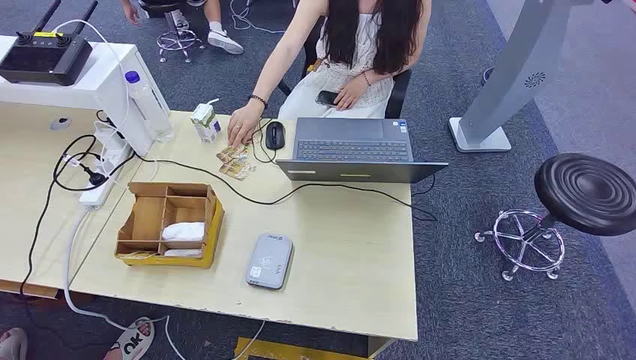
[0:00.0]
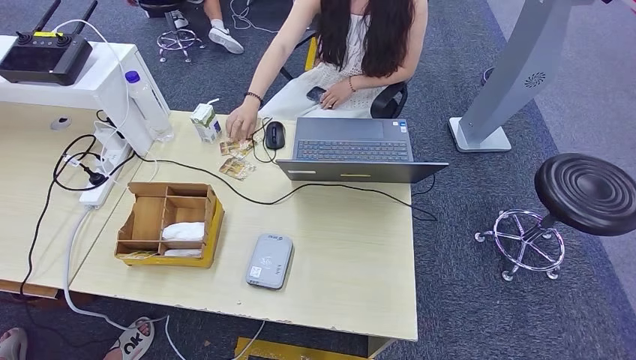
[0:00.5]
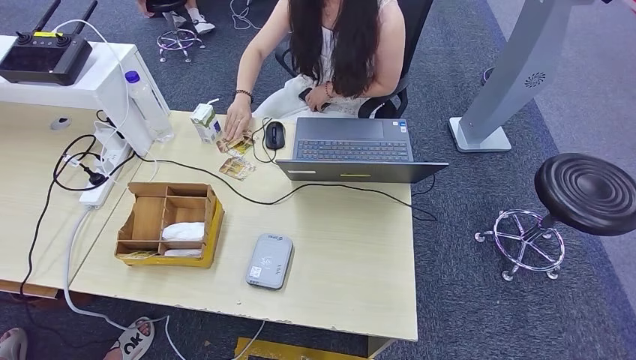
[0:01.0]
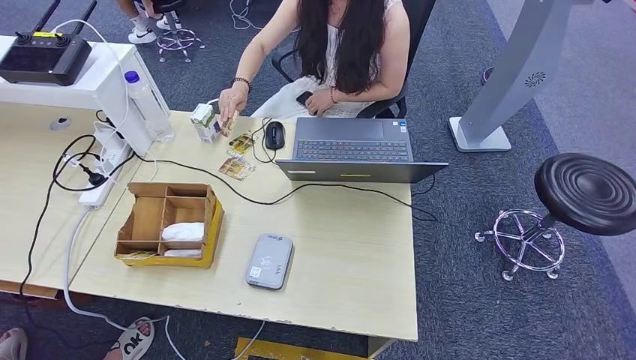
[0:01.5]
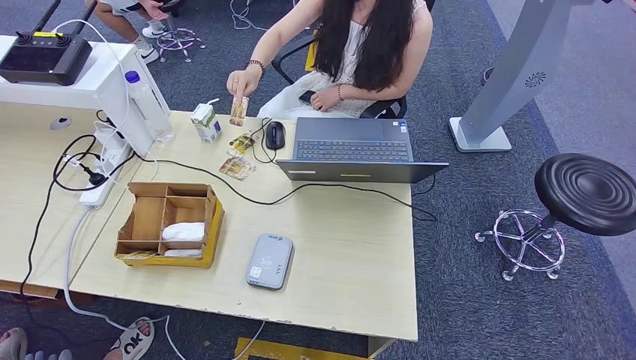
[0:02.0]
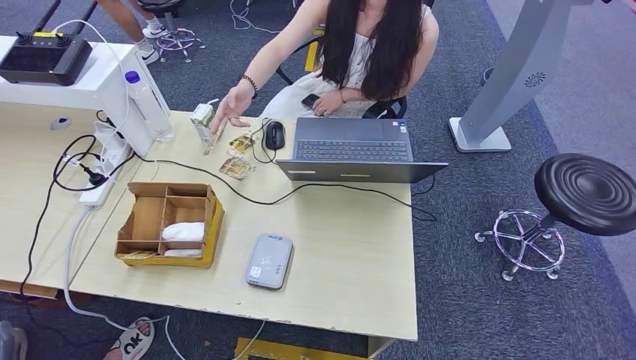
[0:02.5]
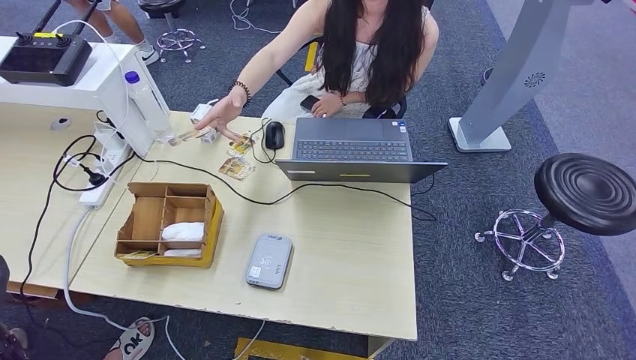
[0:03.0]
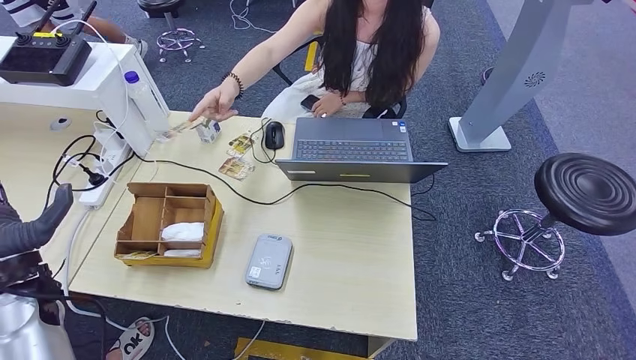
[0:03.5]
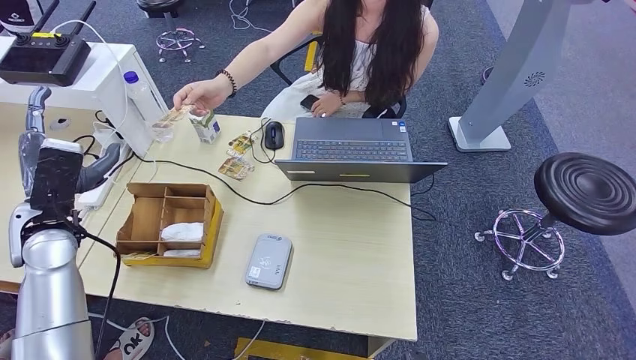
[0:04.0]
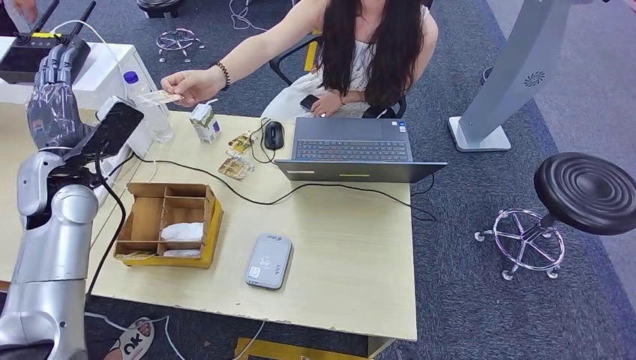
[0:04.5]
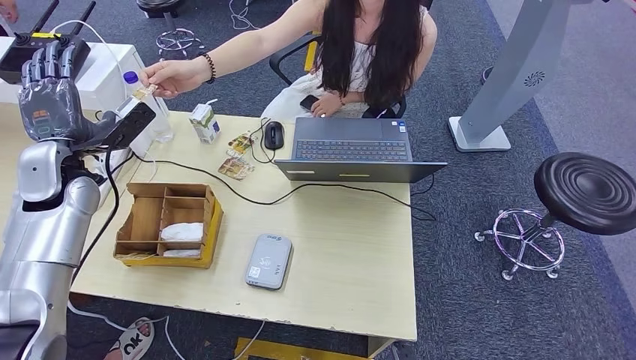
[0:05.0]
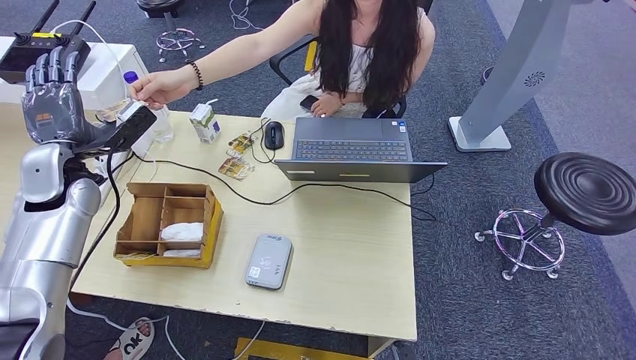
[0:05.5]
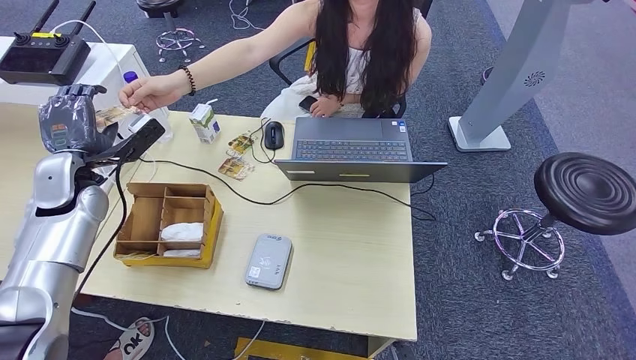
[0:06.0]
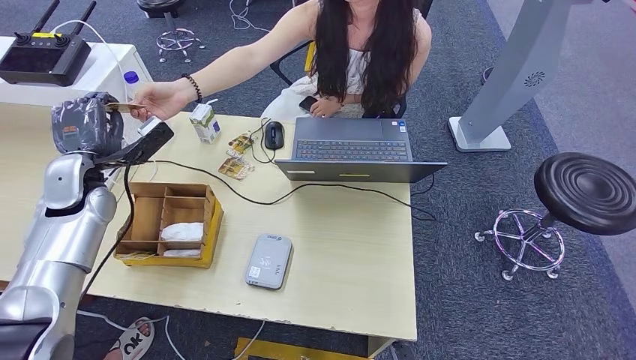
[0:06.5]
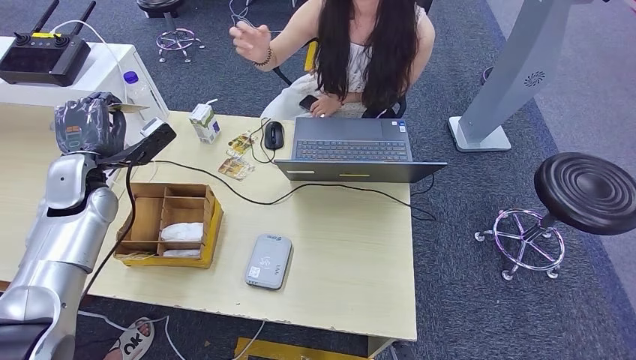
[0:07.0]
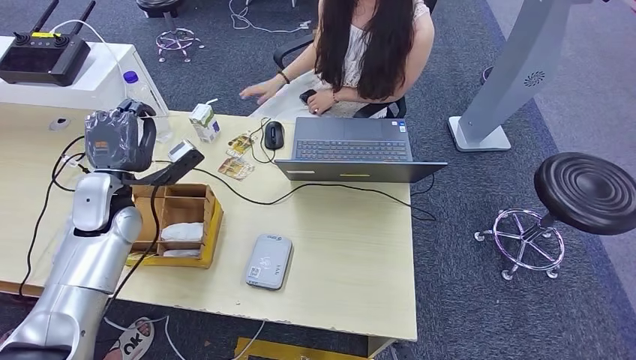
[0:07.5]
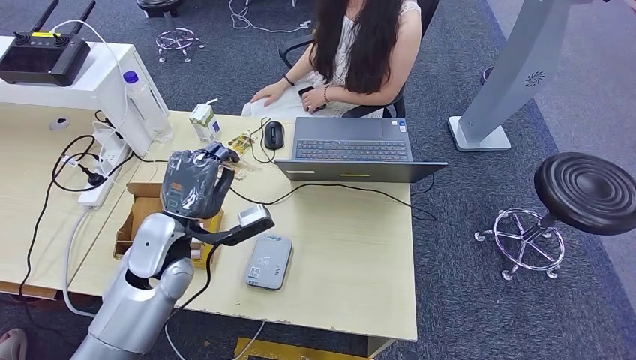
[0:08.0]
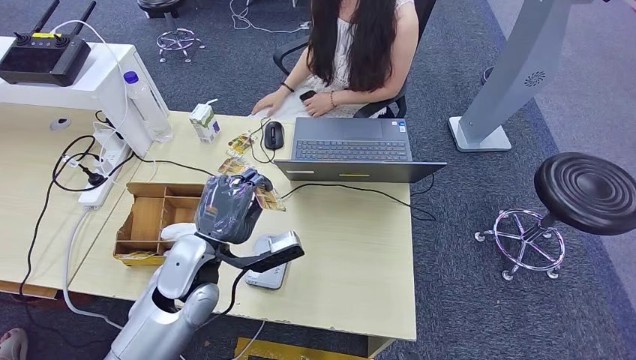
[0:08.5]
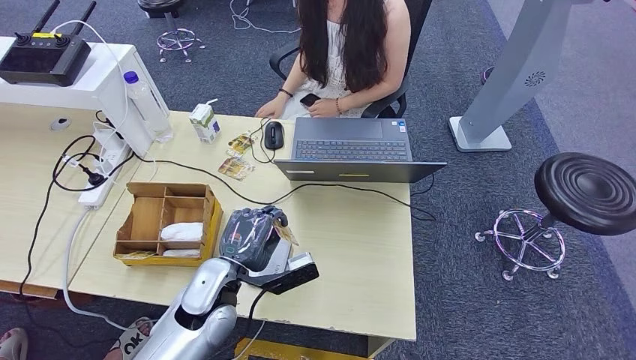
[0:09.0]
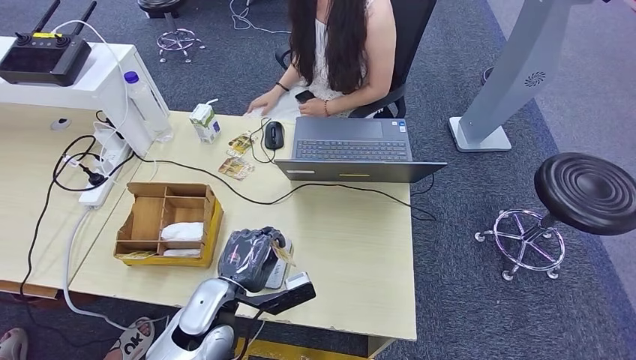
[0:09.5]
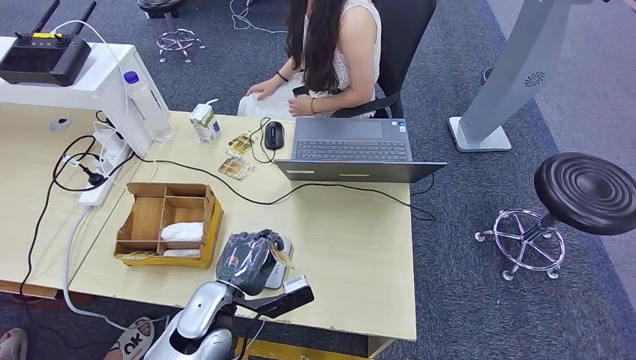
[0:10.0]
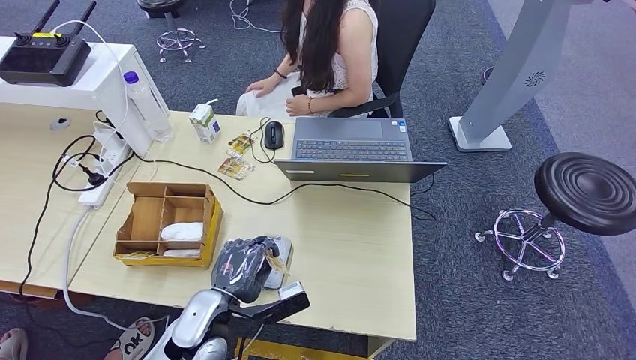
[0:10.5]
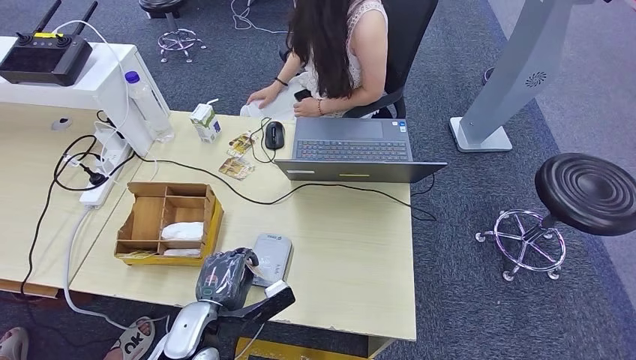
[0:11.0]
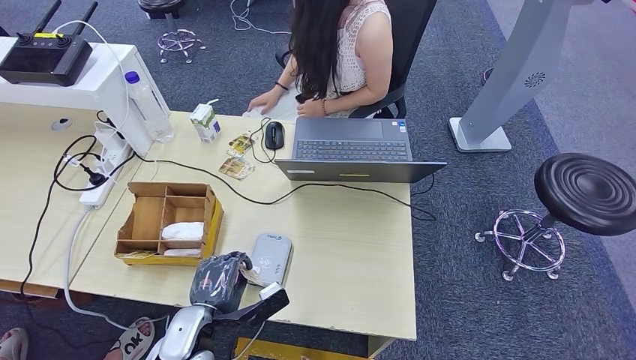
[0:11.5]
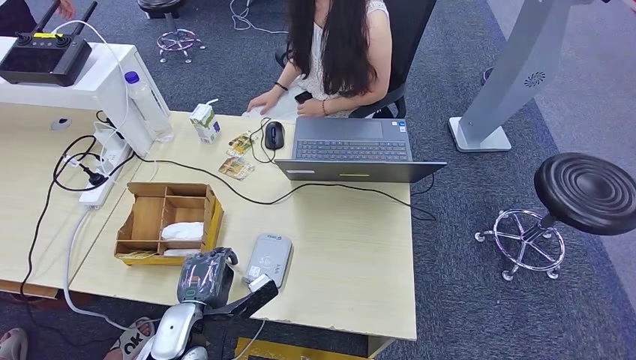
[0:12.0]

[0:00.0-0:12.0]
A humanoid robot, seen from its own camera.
Step, 0:00.0 to 0:06.5: Take the ID card from the person's hand.
Step, 0:07.0 to 0:11.0: Place the ID card on the card reader.
0:02.0 to 0:04.0: The left hand travels forward and upward by about 40 cm.
0:04.0 to 0:06.0: The left hand moves forward, about 5 cm.
0:08.0 to 0:10.0: The left hand goes about 15 cm backward, downward and to the right.
0:10.0 to 0:12.0: The left hand ends up some 5 cm from where it was.

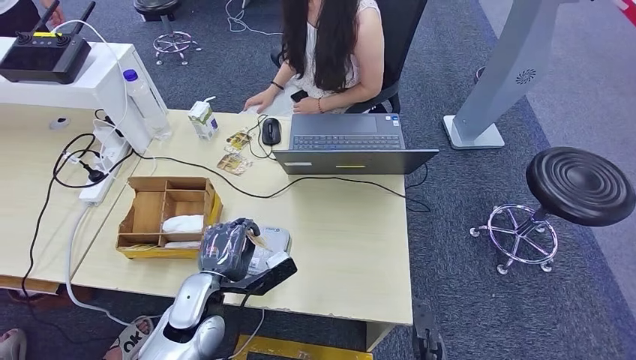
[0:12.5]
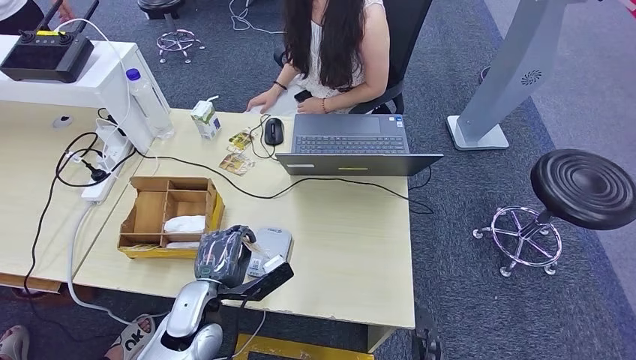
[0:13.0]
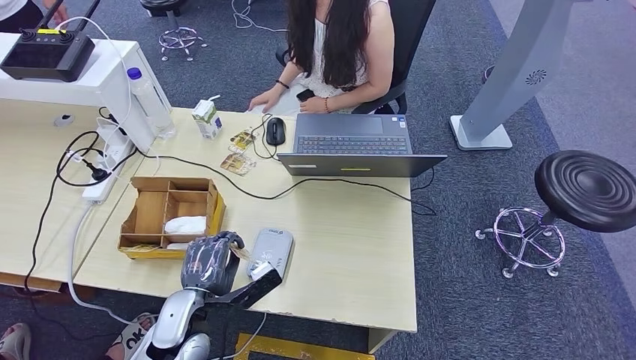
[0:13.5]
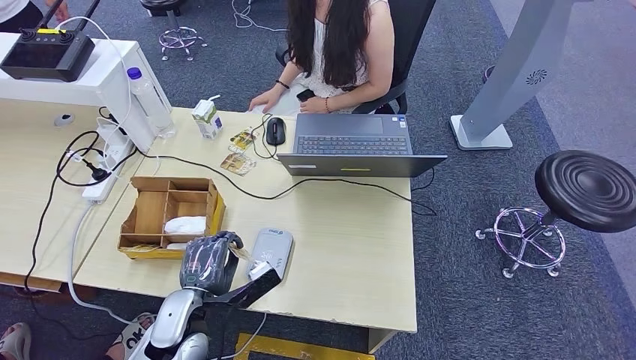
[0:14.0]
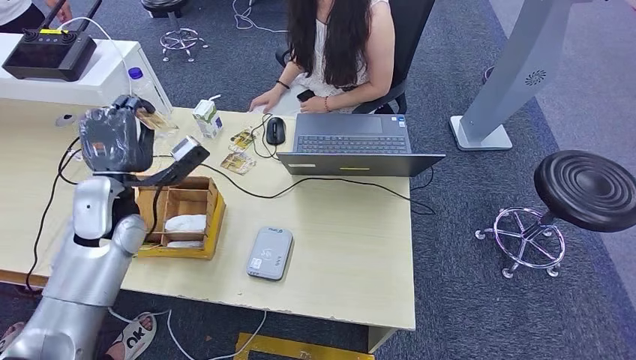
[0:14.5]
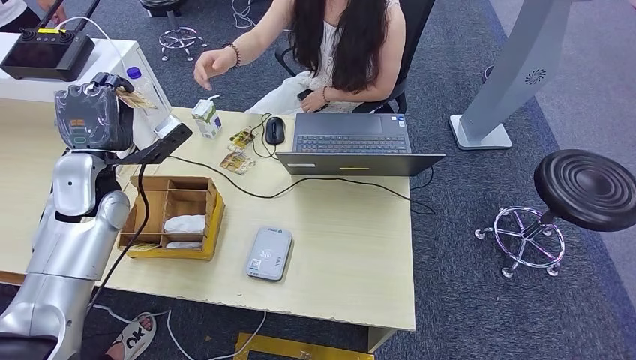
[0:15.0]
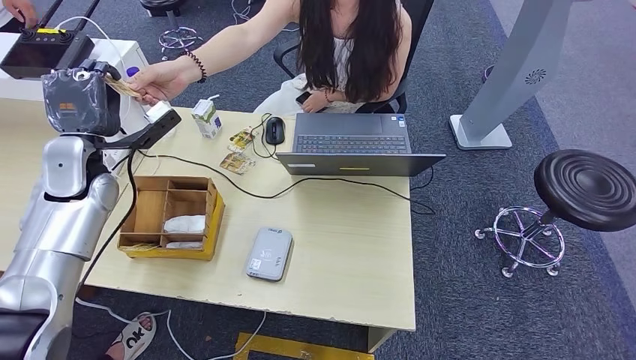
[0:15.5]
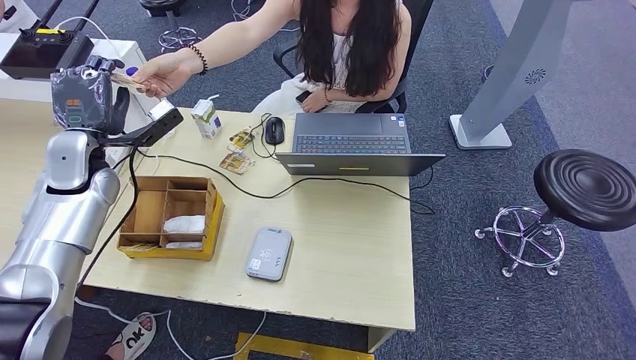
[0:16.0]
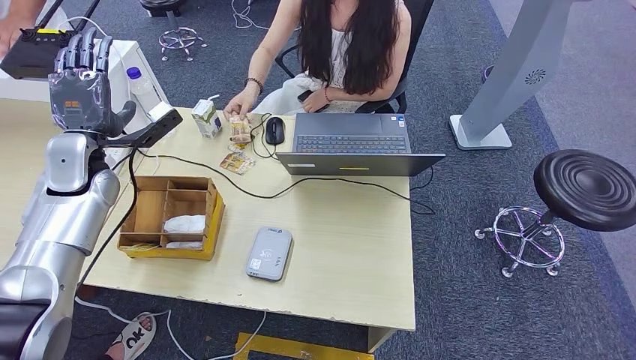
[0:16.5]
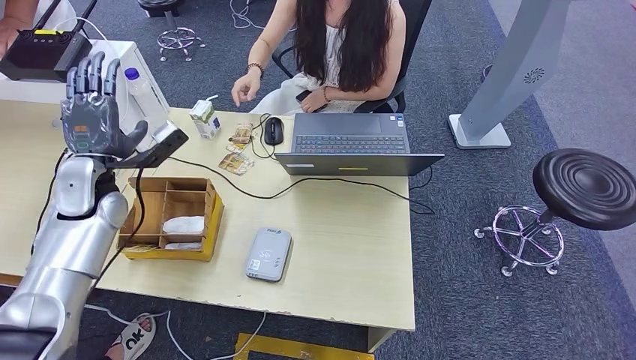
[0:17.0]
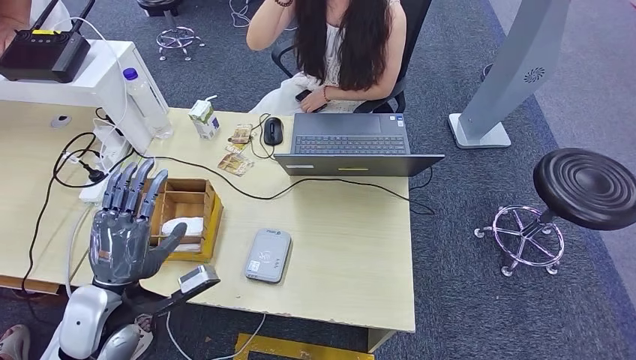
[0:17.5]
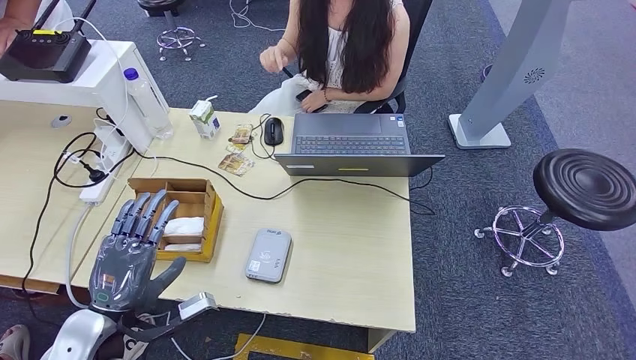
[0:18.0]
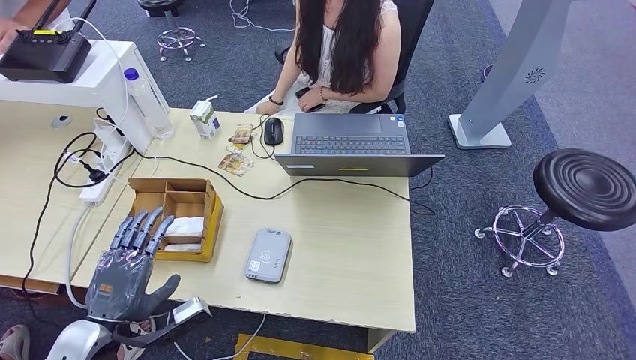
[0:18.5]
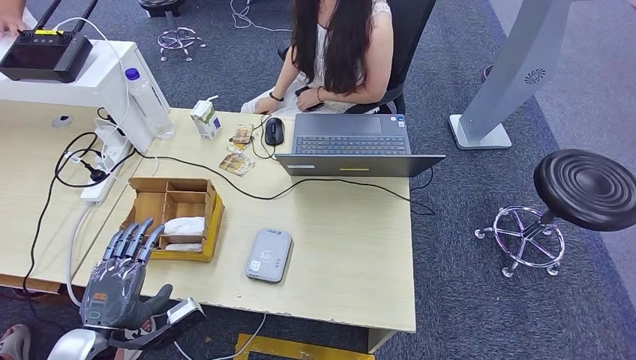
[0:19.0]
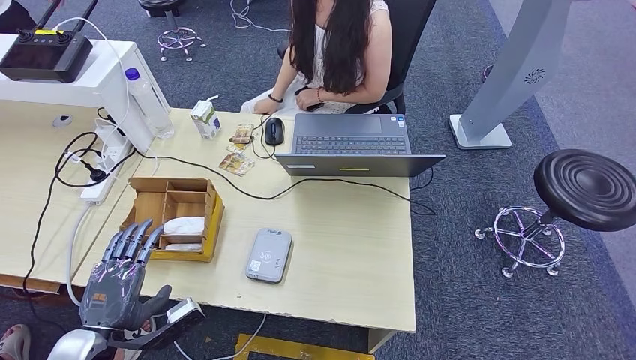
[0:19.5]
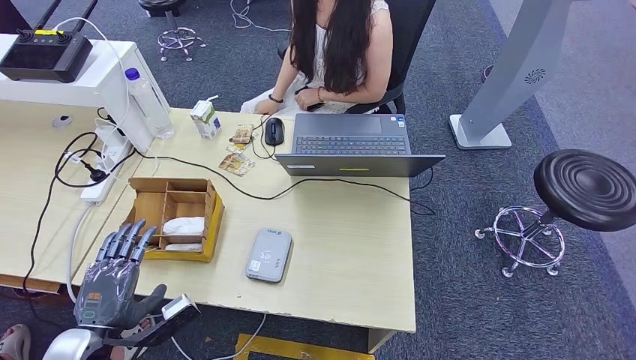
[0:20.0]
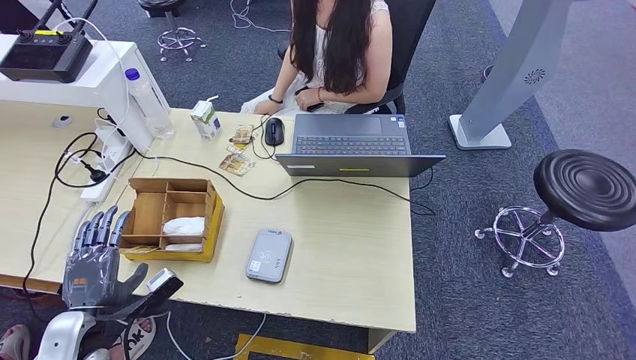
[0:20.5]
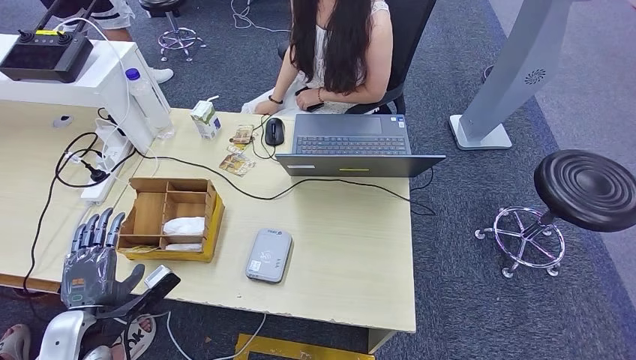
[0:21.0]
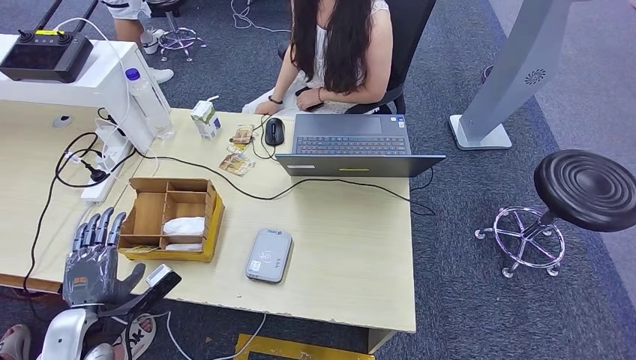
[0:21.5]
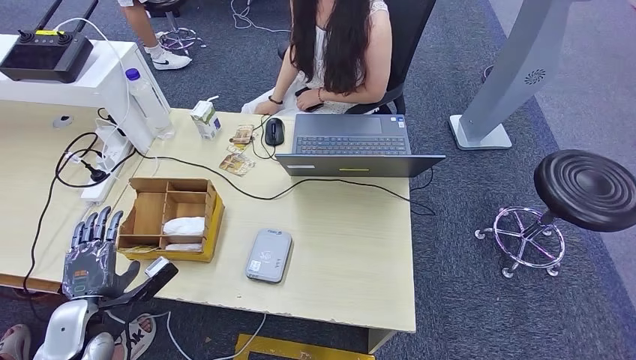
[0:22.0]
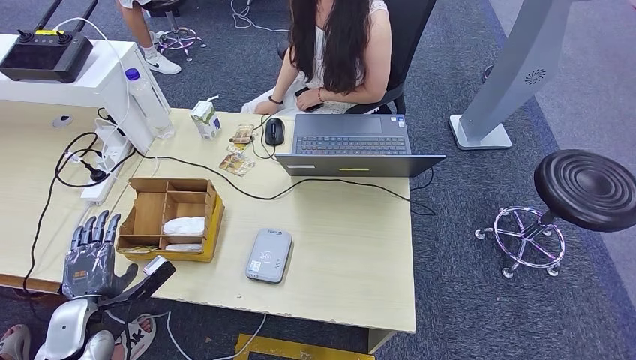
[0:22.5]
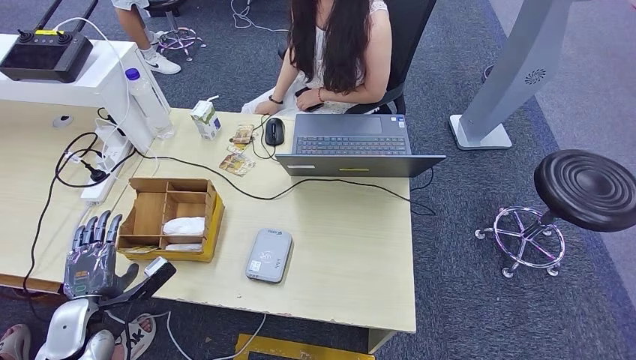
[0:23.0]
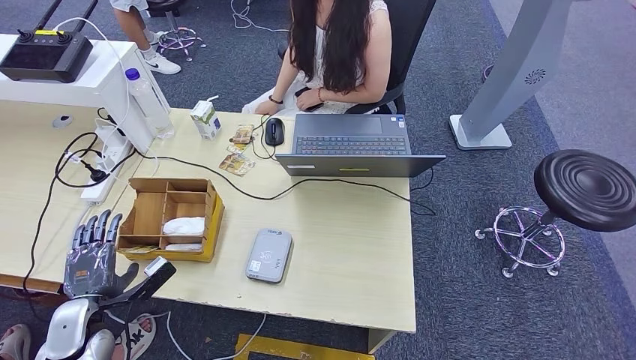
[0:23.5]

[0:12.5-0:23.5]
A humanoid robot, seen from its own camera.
Step, 0:12.5 to 0:15.5: Hand the ID card to the person.
0:18.0 to 0:20.0: The left hand shifts by about 5 cm.
0:20.0 to 0:21.5: The left hand changes place by roughly 5 cm.
0:21.5 to 0:23.5: The hands move only a little.
